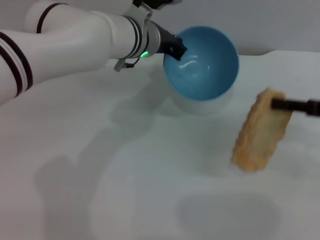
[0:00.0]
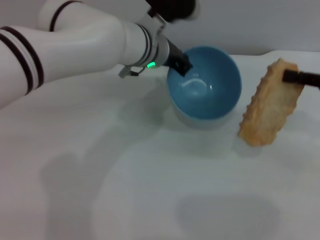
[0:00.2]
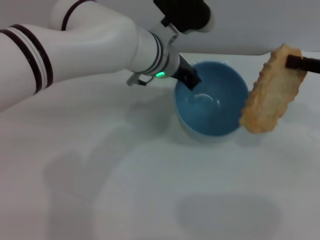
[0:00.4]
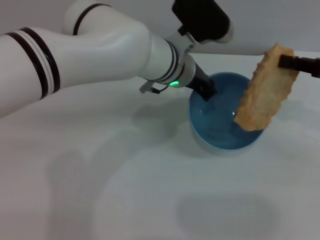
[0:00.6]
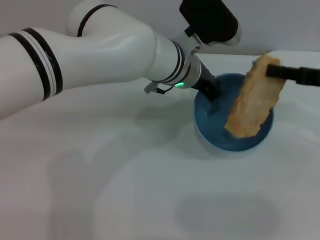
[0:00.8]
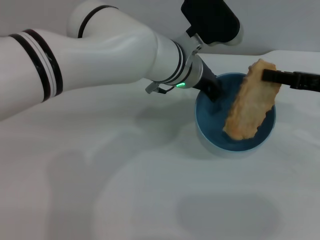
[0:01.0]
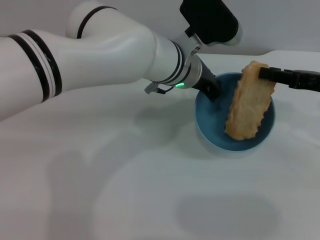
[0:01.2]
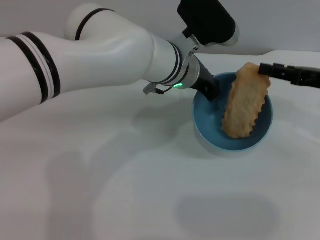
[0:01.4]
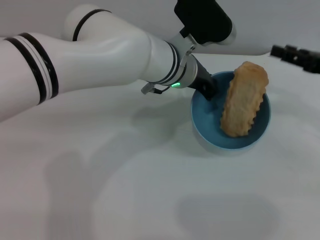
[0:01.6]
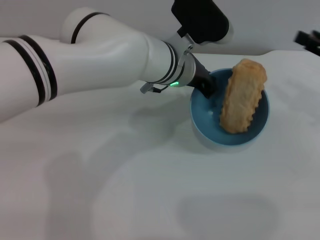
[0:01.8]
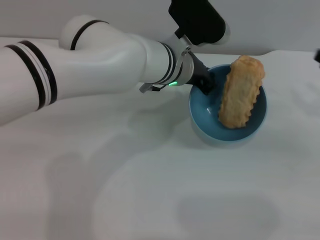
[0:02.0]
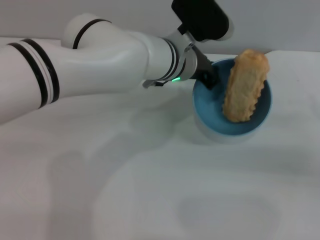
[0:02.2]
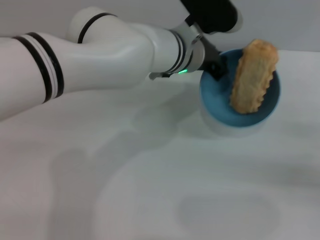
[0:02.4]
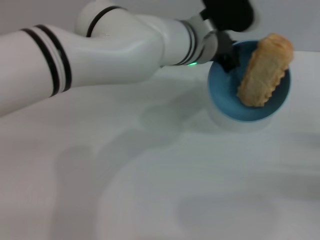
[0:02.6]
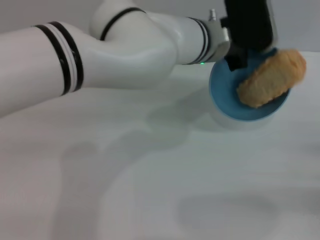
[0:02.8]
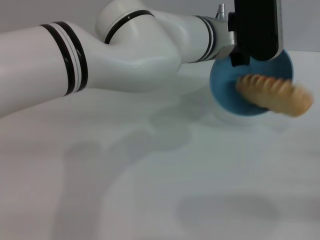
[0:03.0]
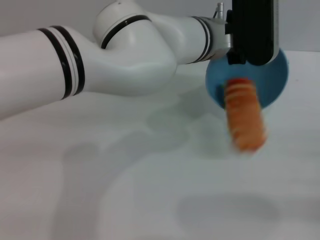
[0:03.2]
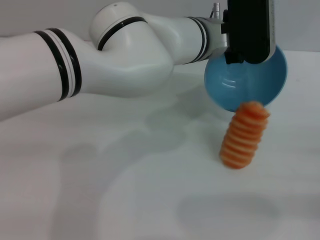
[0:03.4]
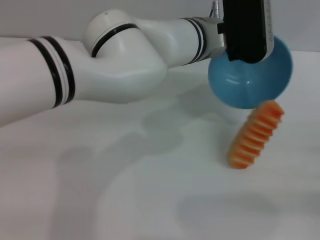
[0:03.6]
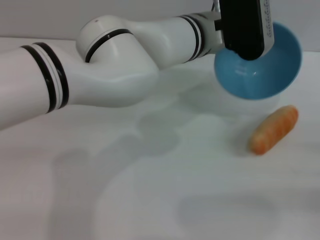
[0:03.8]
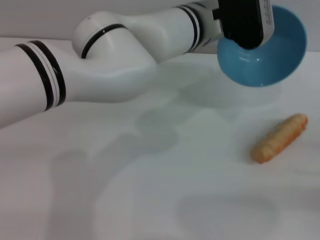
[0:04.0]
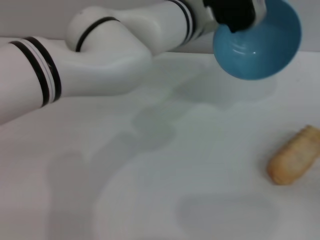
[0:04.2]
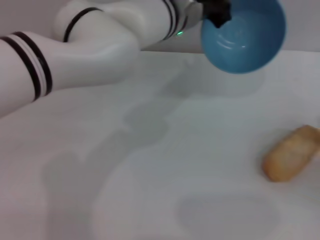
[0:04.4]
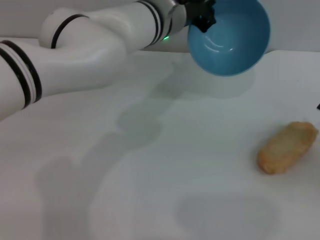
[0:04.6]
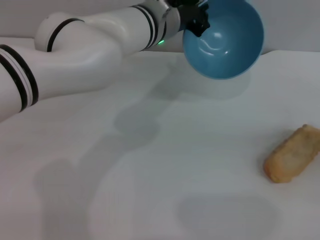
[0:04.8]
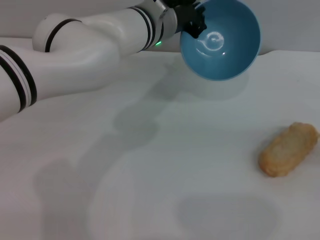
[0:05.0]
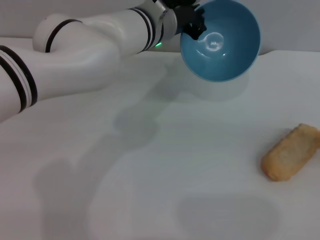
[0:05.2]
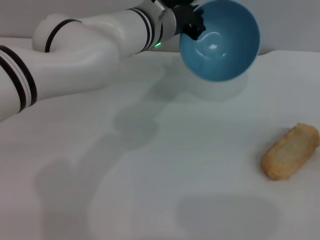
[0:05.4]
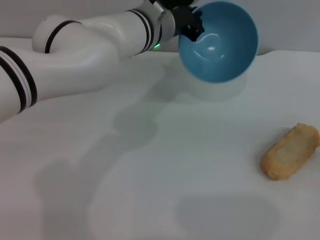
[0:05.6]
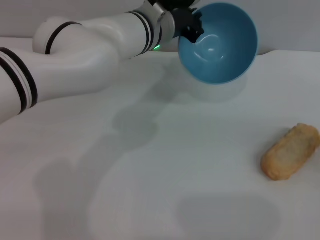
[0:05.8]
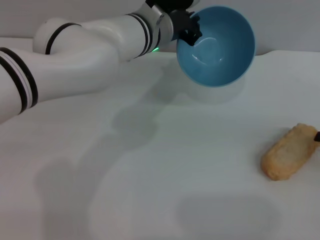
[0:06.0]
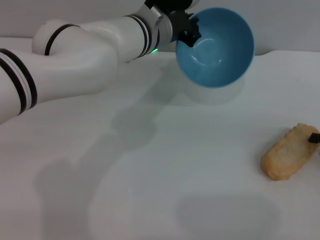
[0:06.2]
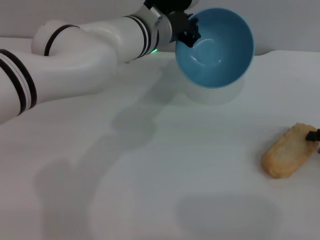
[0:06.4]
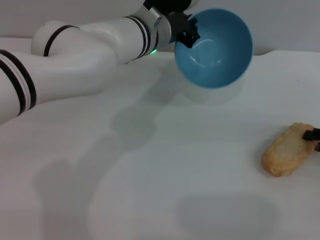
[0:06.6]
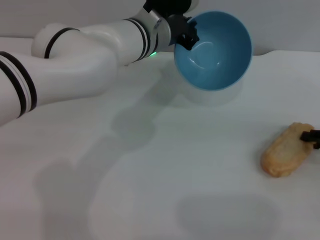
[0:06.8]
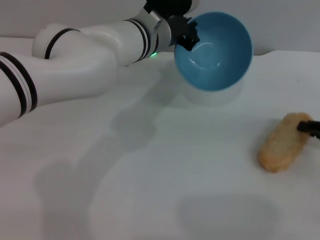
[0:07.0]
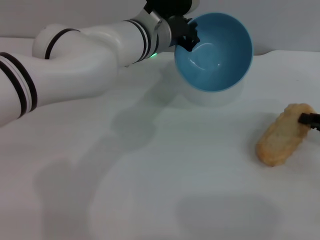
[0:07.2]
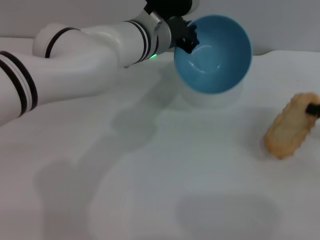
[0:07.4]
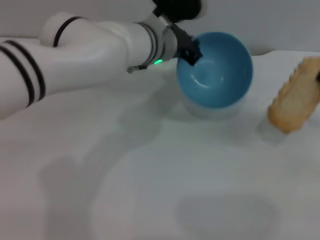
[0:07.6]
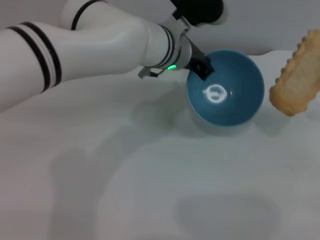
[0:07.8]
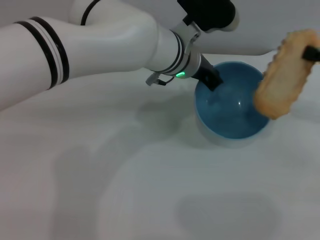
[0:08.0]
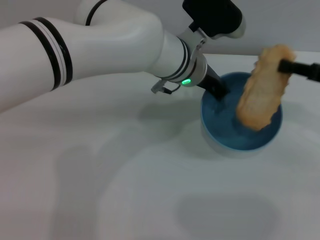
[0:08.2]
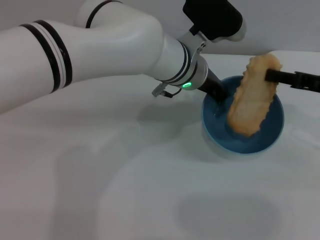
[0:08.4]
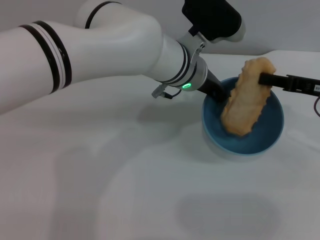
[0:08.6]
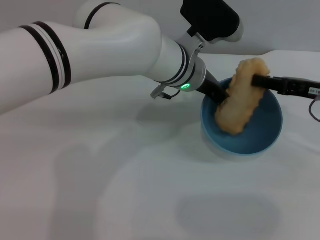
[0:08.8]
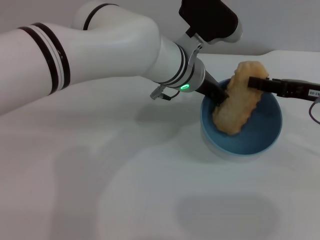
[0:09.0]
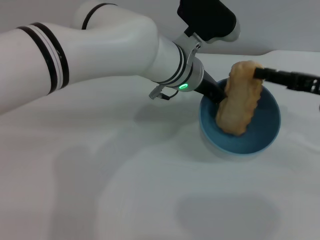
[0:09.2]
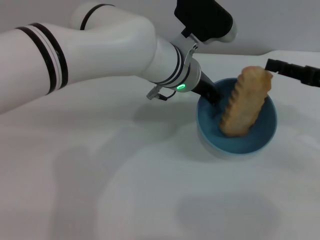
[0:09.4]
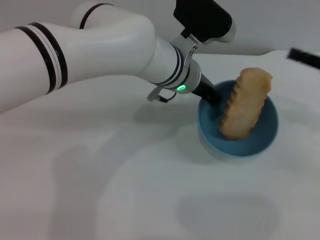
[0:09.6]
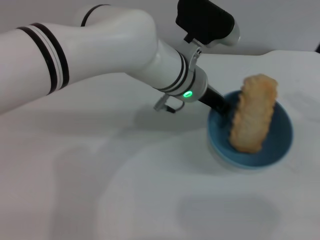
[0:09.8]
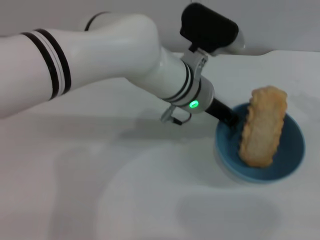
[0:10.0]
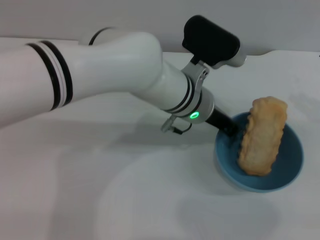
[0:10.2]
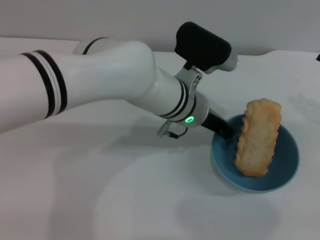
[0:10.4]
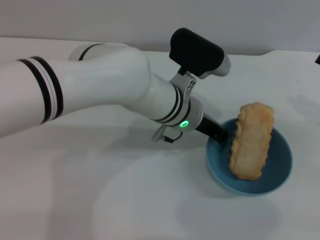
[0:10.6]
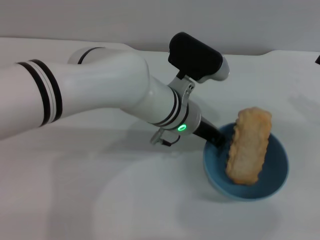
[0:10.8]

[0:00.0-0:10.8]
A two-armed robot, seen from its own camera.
Task of the whole recording: put the bread into the blue bowl and pour it out repeatedly.
Step, 0:00.2 to 0:01.6: Place the bread into the bowl.
Step, 0:01.8 to 0:04.0: Pour the bread out of the bowl.
Step, 0:04.2 to 0:07.4: Pick up the bread with the right gripper.
Step, 0:07.6 to 0:09.4: Place the bread into the bowl.
0:00.0 to 0:01.6: The left gripper travels to the right by approximately 5 cm. Meanwhile the right gripper opens.
0:01.6 to 0:03.0: The left gripper moves some 5 cm; the right gripper moves backward, downward and to the right, approximately 20 cm.
0:03.0 to 0:04.6: The left gripper heads to the left, covering some 5 cm. The right gripper moves forward, approximately 5 cm.
0:06.2 to 0:07.8: The right gripper moves upward, some 10 cm, and closes.
0:07.8 to 0:09.2: The right gripper shifts roughly 5 cm to the left.
0:09.2 to 0:10.8: The right gripper is displaced to the right by approximately 5 cm; the left gripper changes place by some 5 cm.

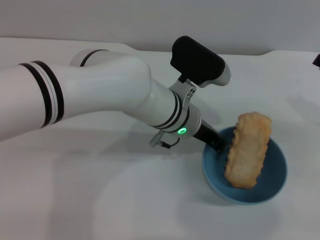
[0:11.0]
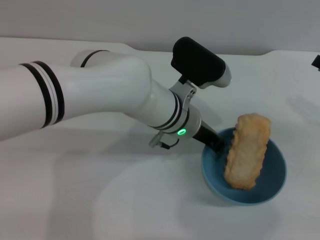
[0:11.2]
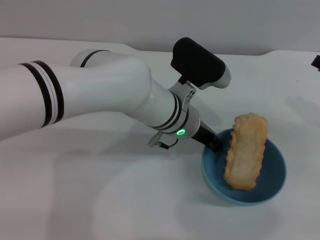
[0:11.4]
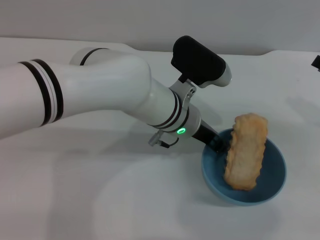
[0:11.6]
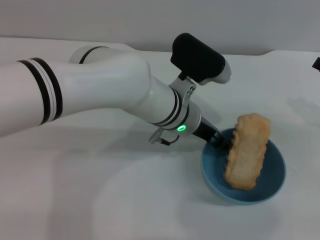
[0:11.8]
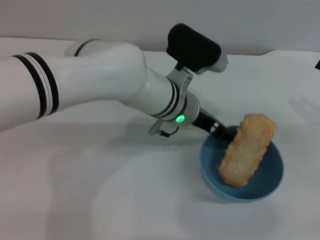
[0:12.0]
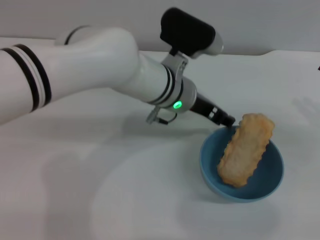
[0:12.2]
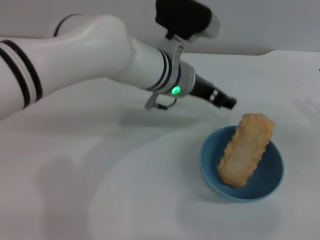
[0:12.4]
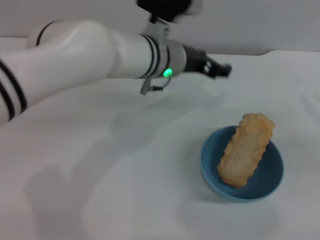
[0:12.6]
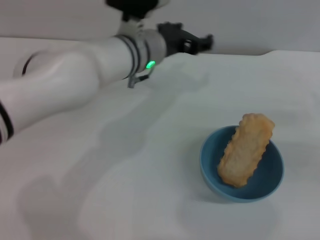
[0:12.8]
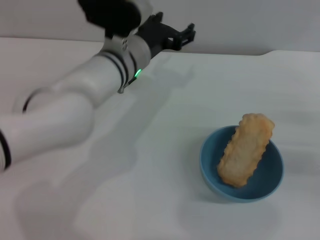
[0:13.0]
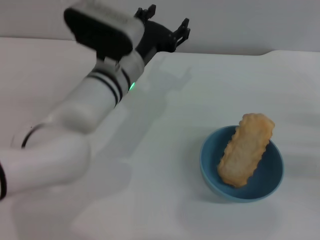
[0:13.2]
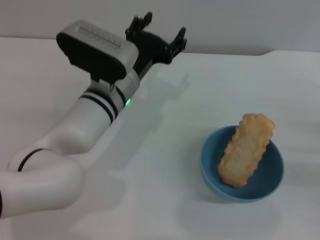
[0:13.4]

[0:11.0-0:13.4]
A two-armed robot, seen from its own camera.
Task of the whole recording: put the bread into the blue bowl and pour it out repeatedly.
0:11.0 to 0:12.2: The left gripper opens its fingers.
0:12.2 to 0:13.4: The right gripper travels downward by approximately 5 cm. Meanwhile the left gripper goes about 10 cm to the left.
